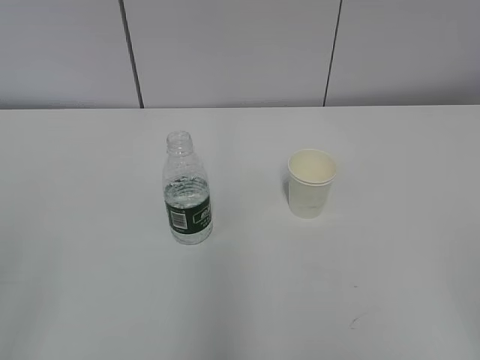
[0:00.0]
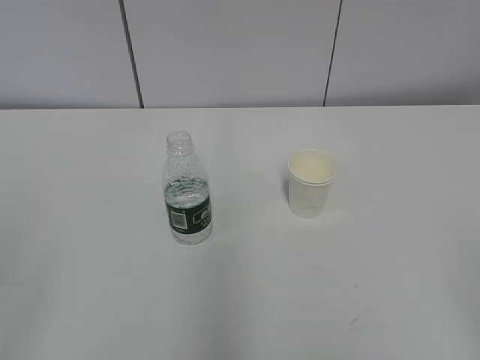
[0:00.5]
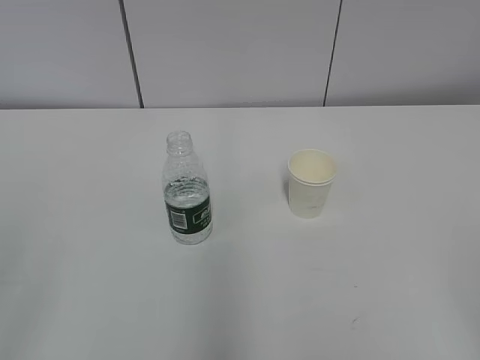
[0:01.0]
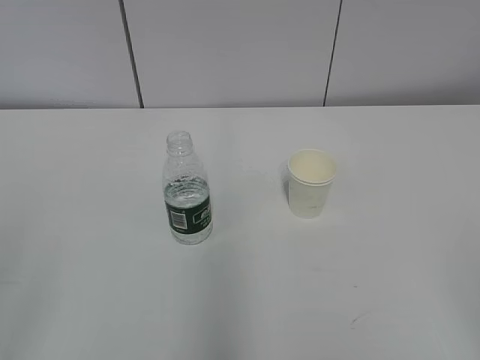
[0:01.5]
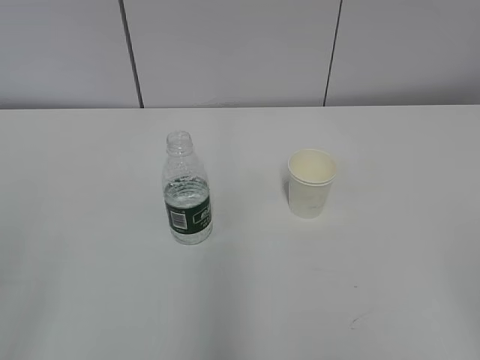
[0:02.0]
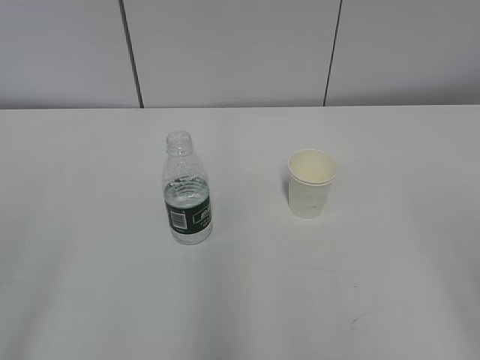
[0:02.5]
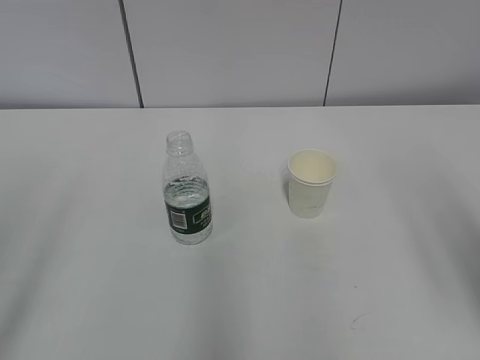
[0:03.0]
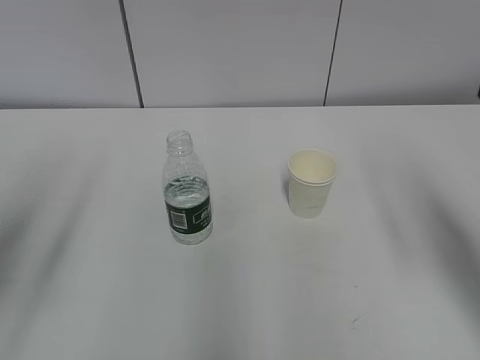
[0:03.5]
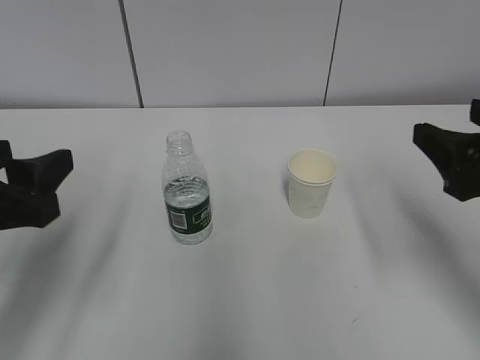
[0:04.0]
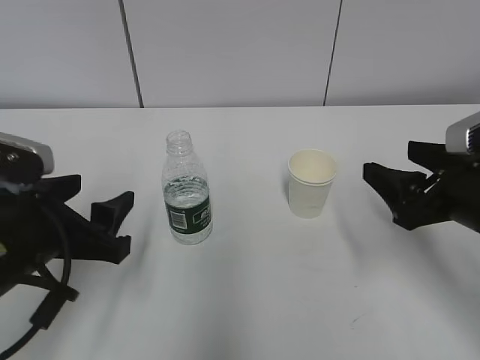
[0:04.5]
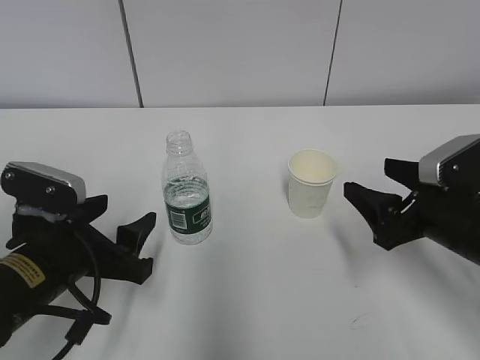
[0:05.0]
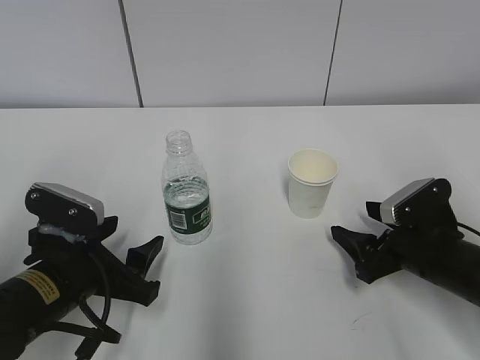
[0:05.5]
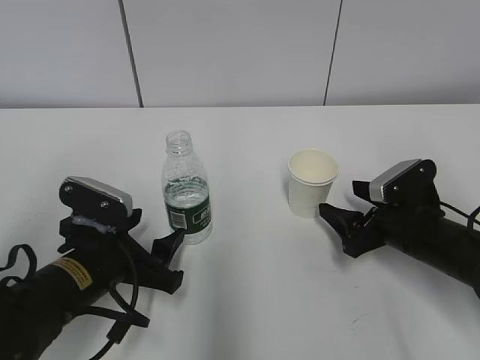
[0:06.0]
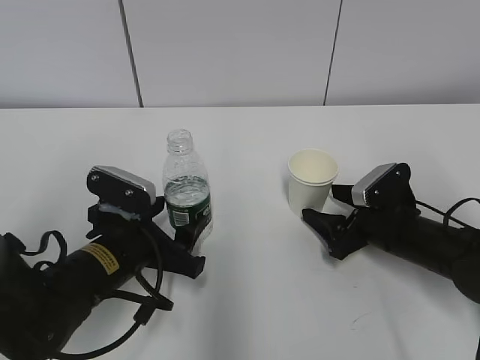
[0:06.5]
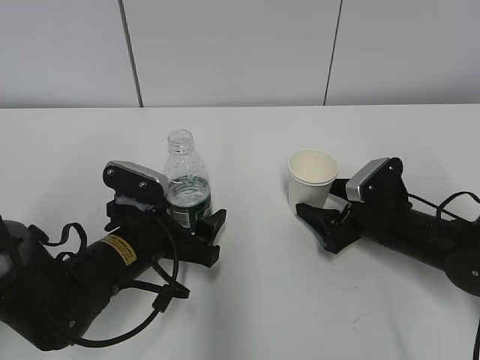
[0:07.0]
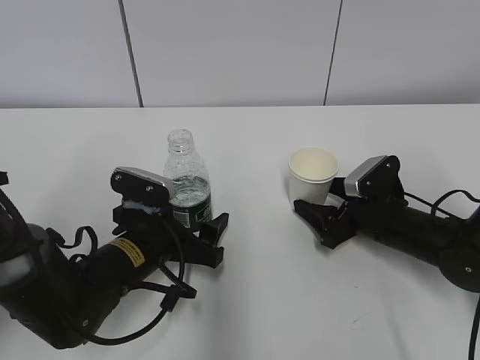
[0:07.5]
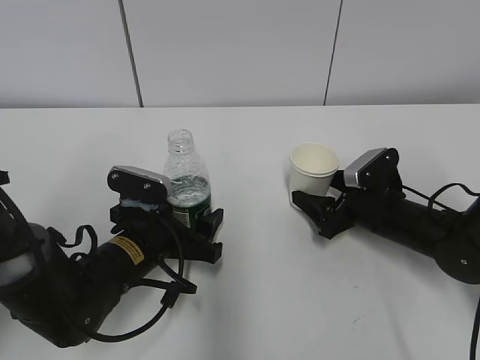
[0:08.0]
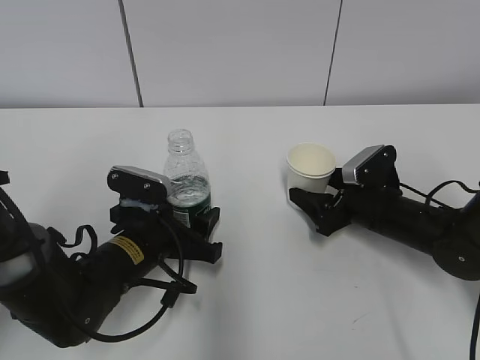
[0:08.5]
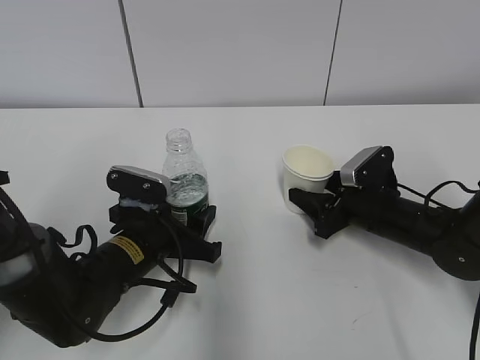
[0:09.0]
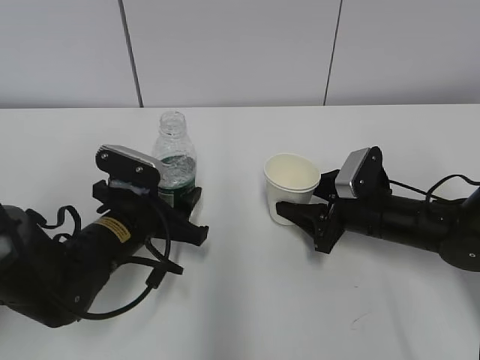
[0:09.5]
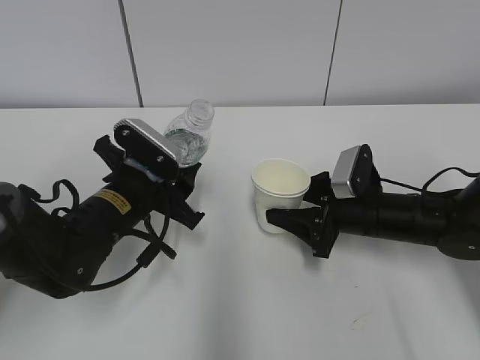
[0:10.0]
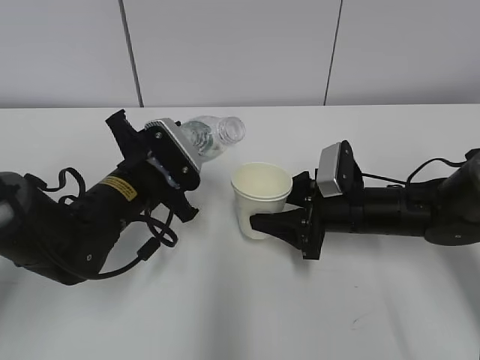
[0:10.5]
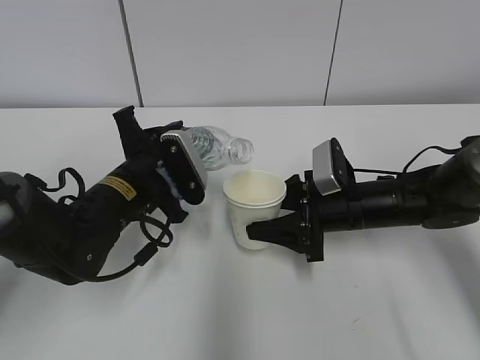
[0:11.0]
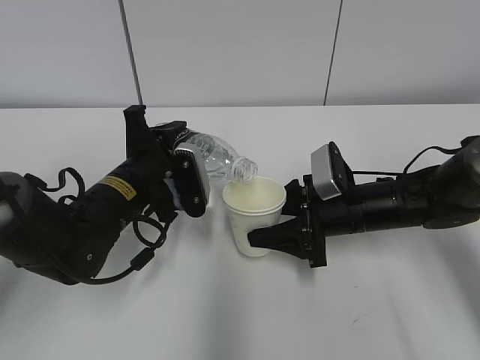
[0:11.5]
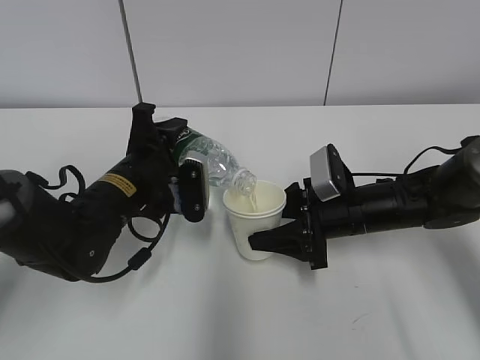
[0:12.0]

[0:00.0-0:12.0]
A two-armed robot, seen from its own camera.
Step, 0:00.0 to 0:07.0: Grab the paper cup with the right hand.
Step, 0:08.0 to 0:09.5: Lift the paper cup with the right hand.
Step, 0:10.0 to 0:11.5: Fill water with the right hand.
Step, 0:10.0 to 0:11.5: Pour water with the left hand.
0:02.0 to 0:04.0: Both grippers travel together forward, roughly 20 cm. The left gripper opens up.
0:04.0 to 0:06.0: The right gripper moves downward and forward, some 20 cm; the left gripper shifts some 20 cm downward, to the right and forward.
0:06.0 to 0:08.0: The left gripper ends up some 5 cm from where it was; the right gripper travels forward by approximately 5 cm.
0:08.0 to 0:10.0: The right gripper closes. Meanwhile the left gripper changes place by roughly 5 cm, and closes.

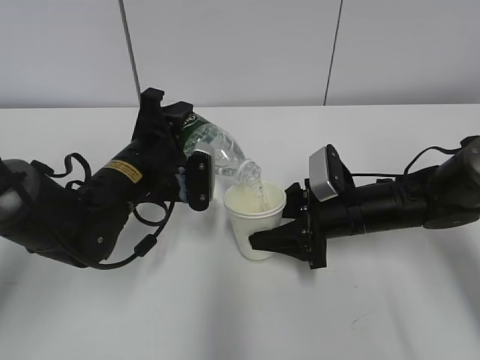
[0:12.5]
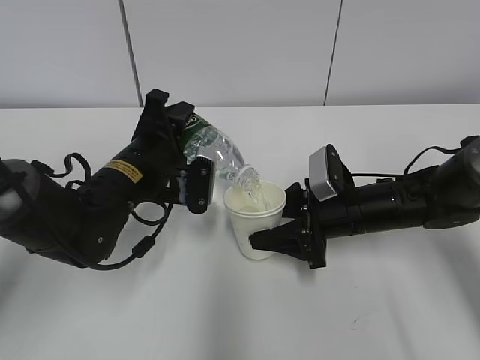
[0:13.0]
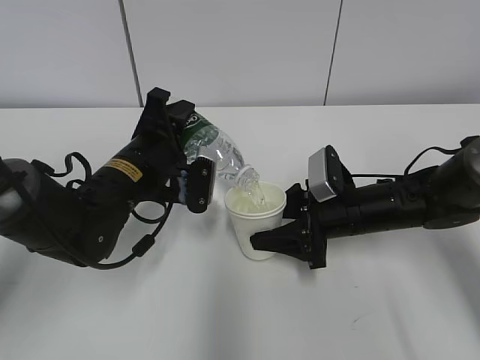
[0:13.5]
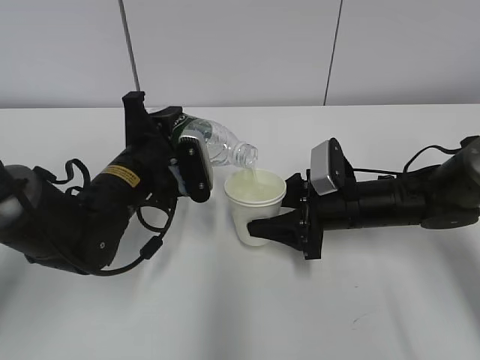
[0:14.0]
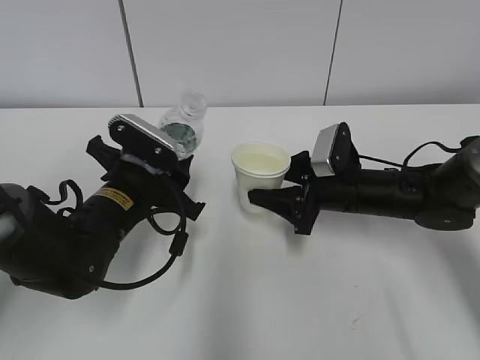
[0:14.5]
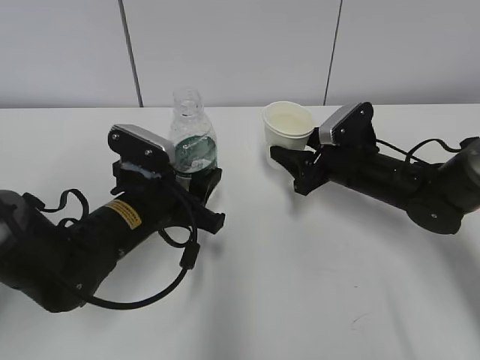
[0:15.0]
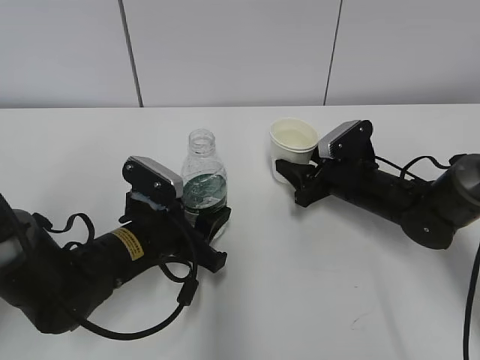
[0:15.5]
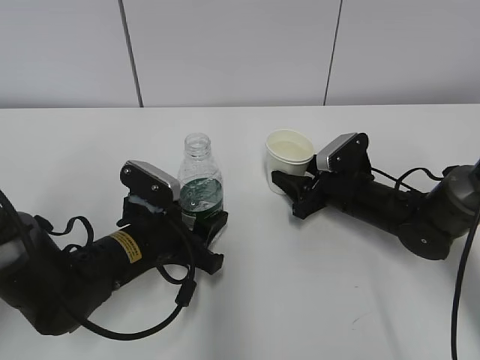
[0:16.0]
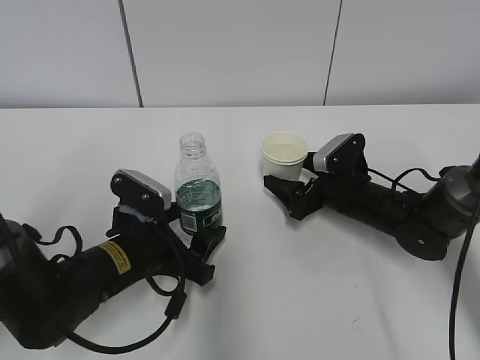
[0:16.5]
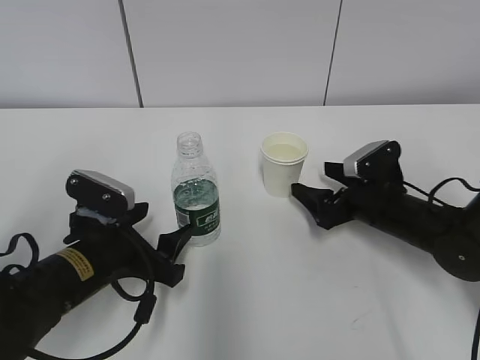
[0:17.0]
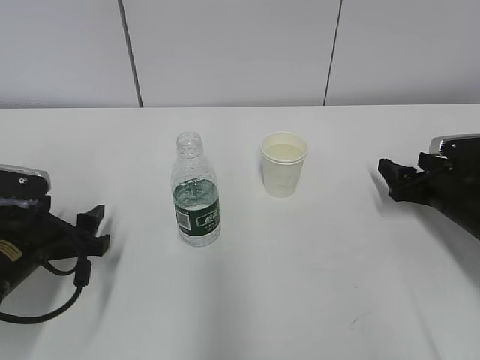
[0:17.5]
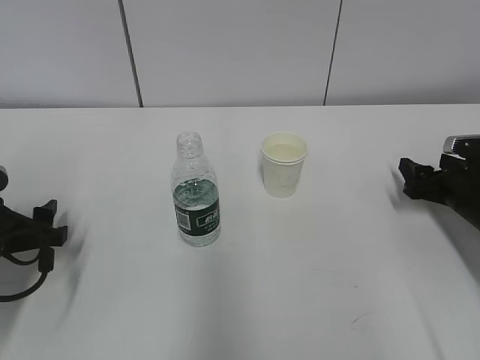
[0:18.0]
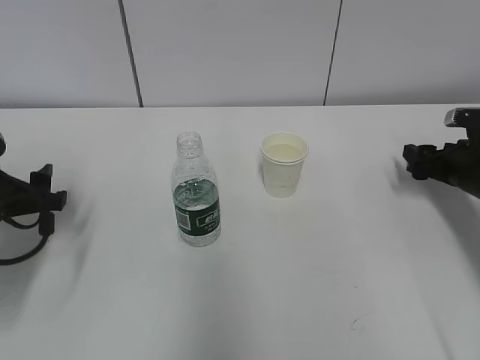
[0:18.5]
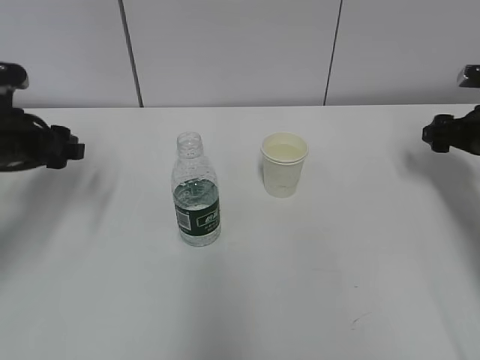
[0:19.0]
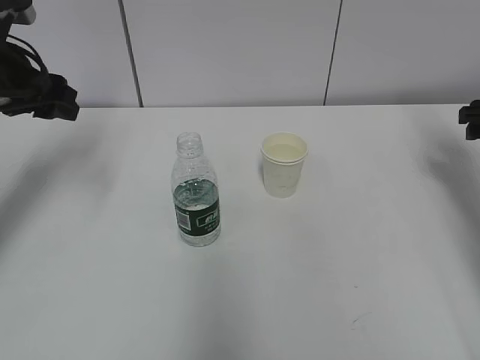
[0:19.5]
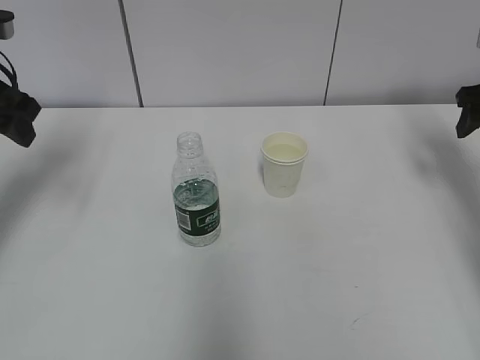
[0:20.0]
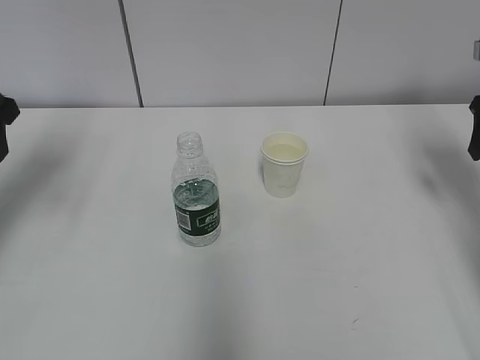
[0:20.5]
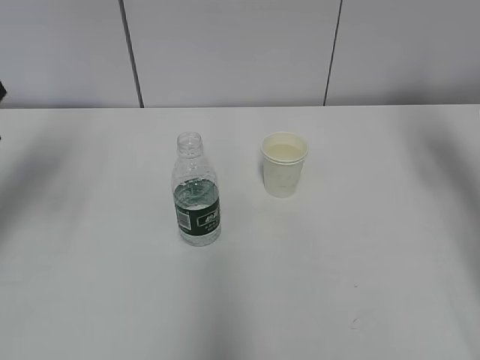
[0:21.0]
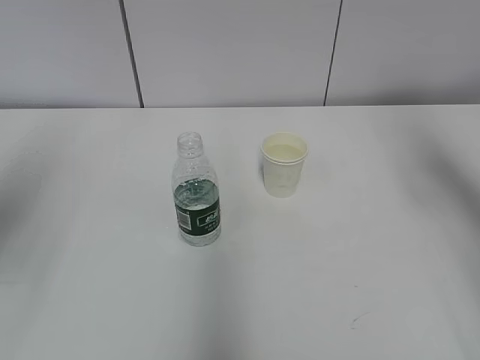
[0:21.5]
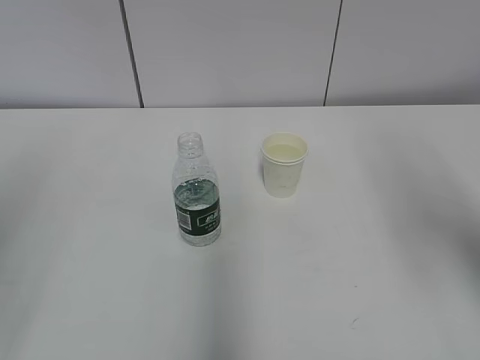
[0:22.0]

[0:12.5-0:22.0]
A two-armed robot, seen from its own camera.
0:14.5 to 0:16.5: The left gripper ends up approximately 5 cm from where it was, and opens its fingers; the right gripper changes place by roughly 5 cm, and opens.
0:16.5 to 0:18.0: The left gripper travels to the left by approximately 15 cm. Meanwhile the right gripper shifts about 15 cm to the right.
0:18.0 to 0:20.0: The left gripper heads upward and forward, covering some 20 cm. Meanwhile the right gripper is displaced upward by about 15 cm.
0:20.0 to 0:22.0: The right gripper shifts roughly 25 cm backward, upward and to the left. Meanwhile the left gripper heads backward, covering some 25 cm.

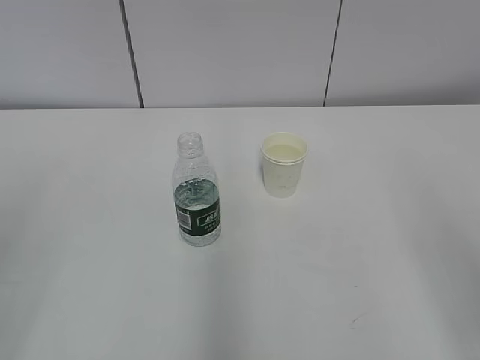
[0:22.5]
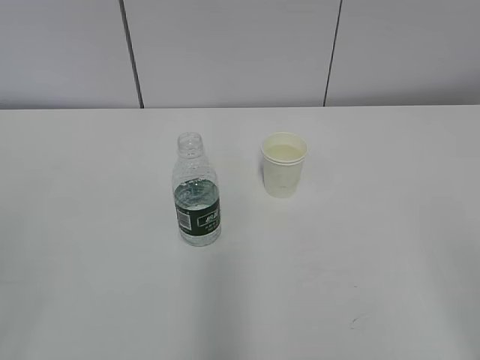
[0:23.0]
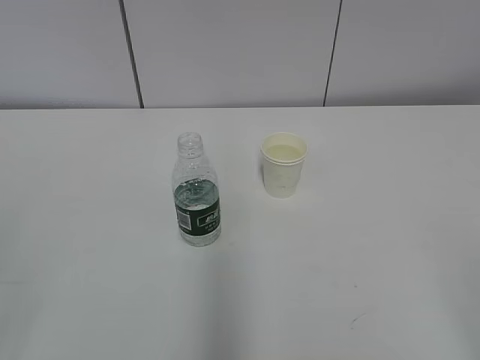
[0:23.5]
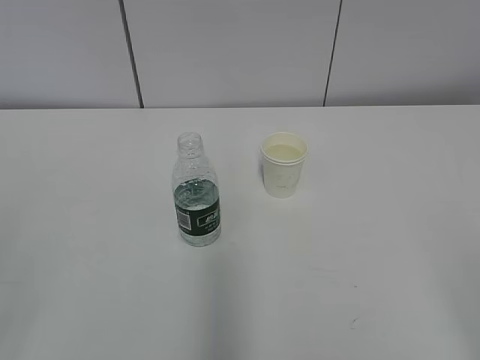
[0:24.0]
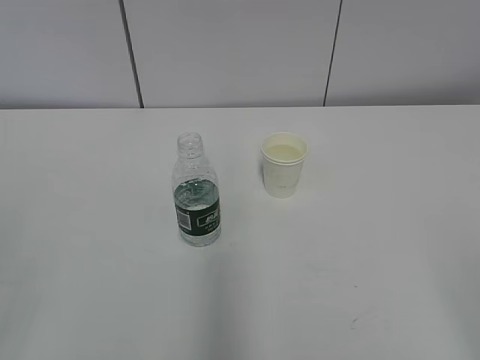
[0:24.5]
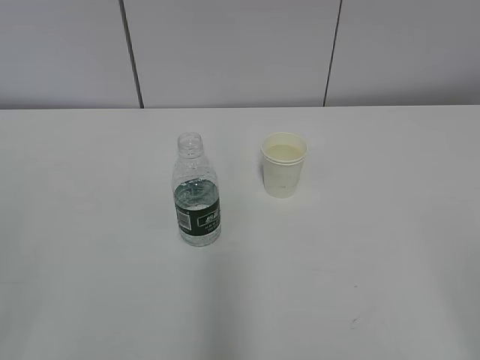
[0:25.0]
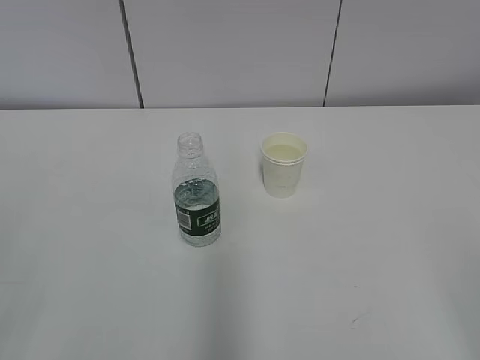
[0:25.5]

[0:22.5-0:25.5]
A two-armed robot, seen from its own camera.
0:24.0 to 0:25.5: Both grippers stay about where they are.

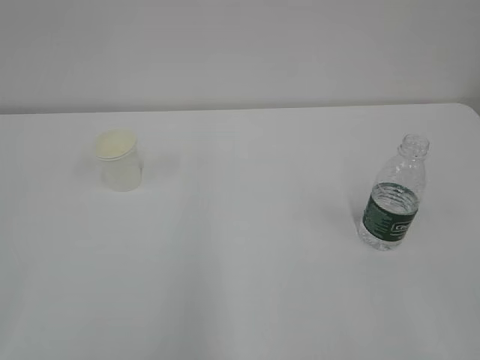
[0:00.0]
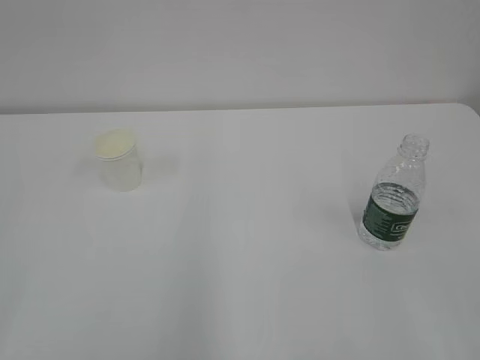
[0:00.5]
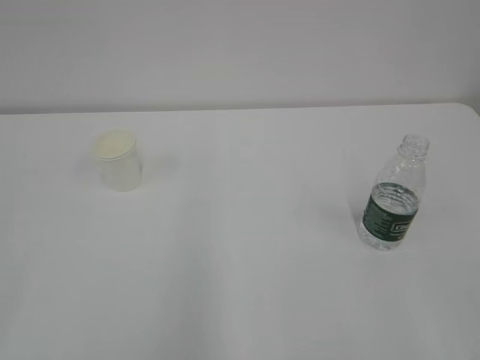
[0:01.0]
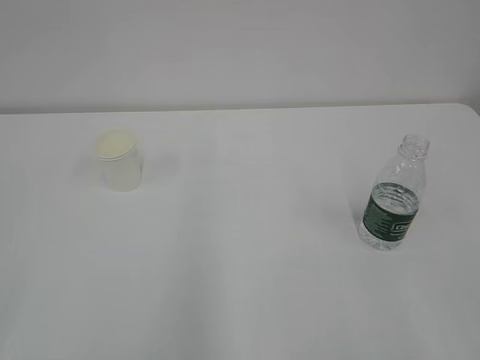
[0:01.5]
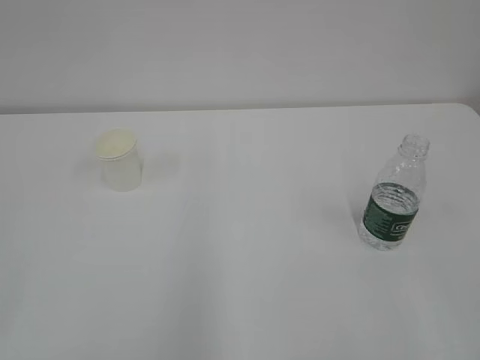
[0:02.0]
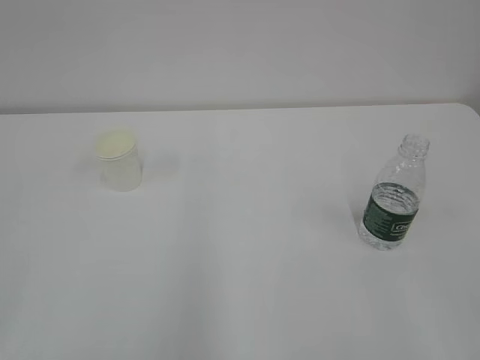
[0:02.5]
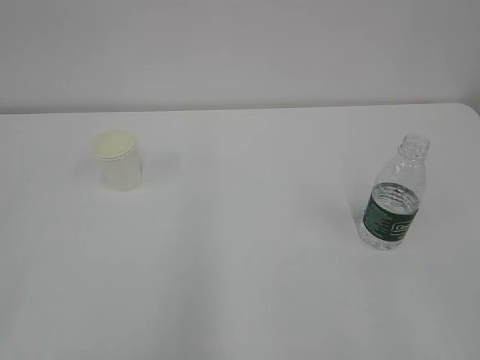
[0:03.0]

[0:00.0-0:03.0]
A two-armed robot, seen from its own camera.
0:01.5 to 0:03.0: The two grippers keep their place.
